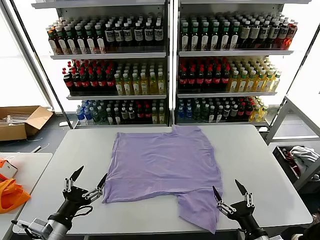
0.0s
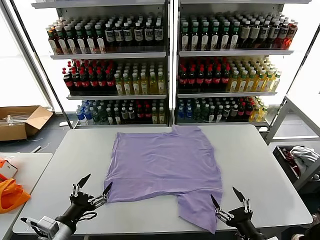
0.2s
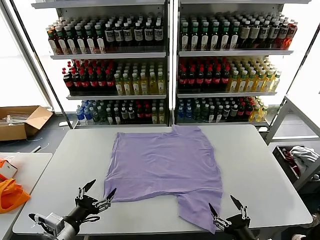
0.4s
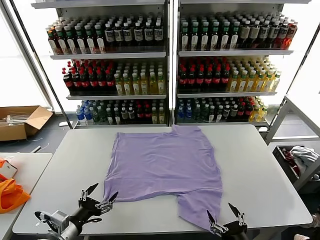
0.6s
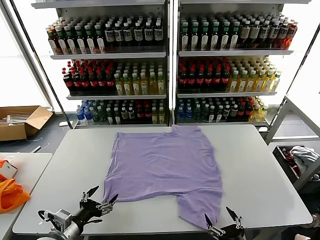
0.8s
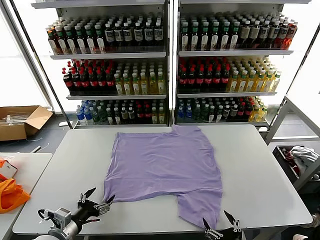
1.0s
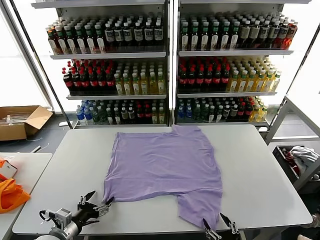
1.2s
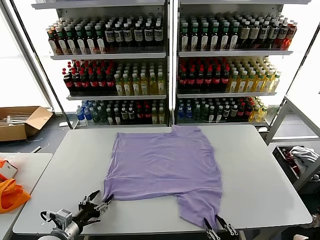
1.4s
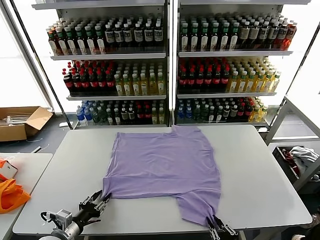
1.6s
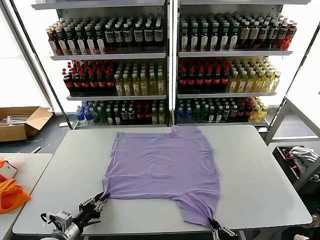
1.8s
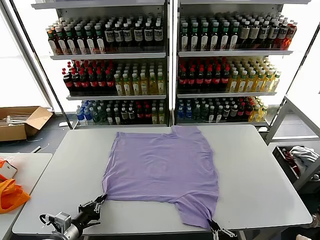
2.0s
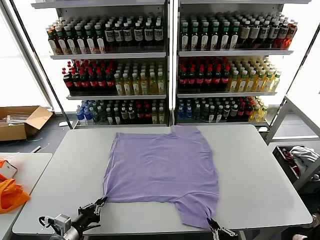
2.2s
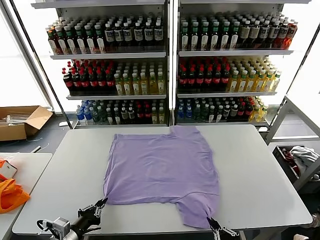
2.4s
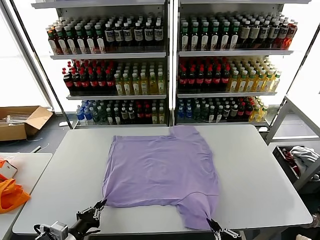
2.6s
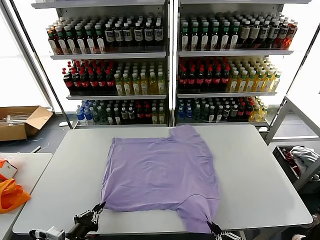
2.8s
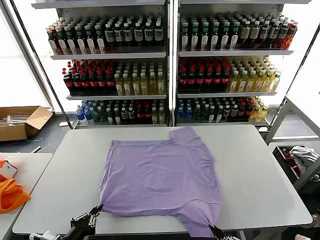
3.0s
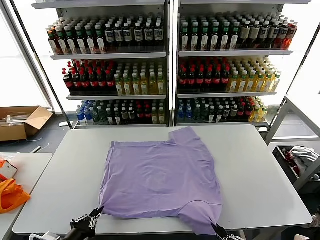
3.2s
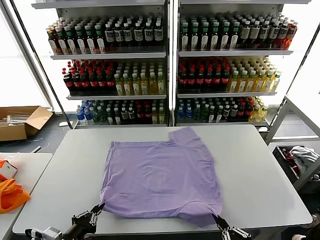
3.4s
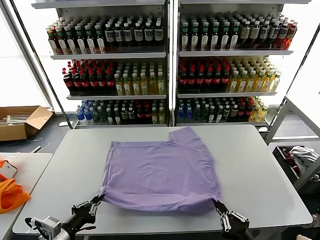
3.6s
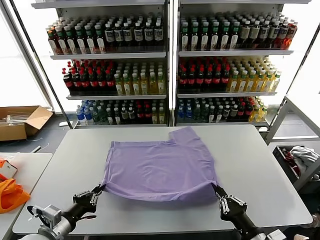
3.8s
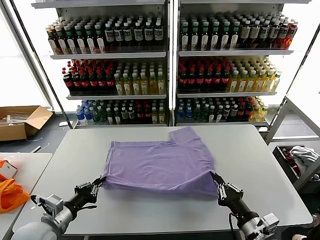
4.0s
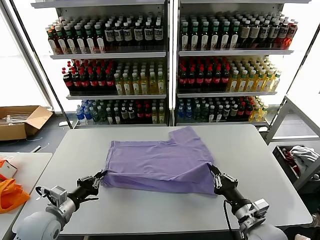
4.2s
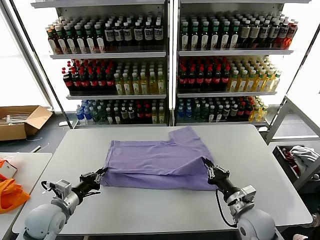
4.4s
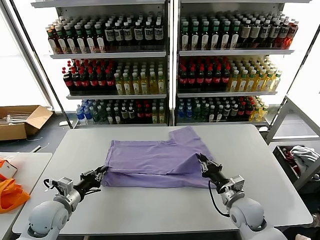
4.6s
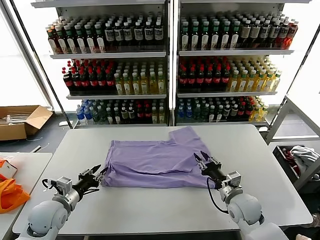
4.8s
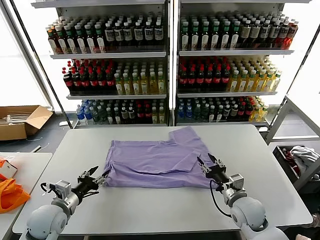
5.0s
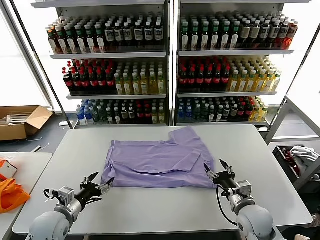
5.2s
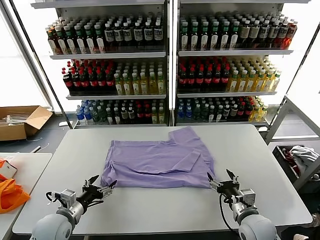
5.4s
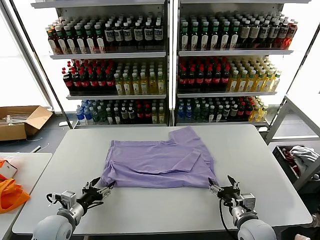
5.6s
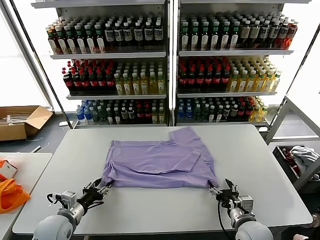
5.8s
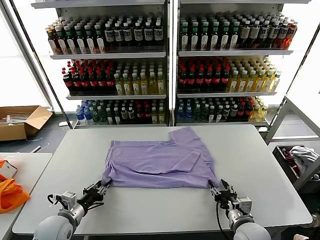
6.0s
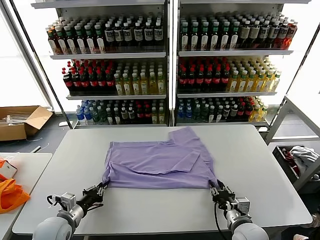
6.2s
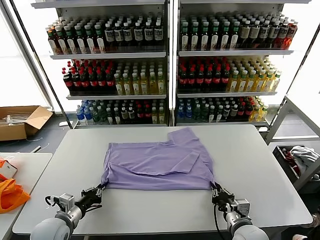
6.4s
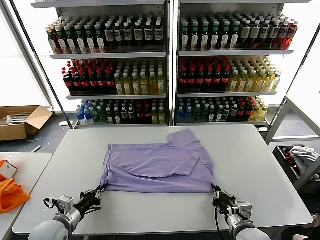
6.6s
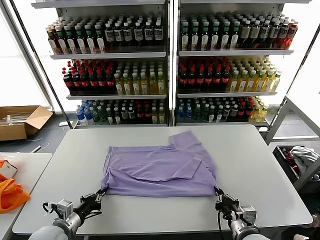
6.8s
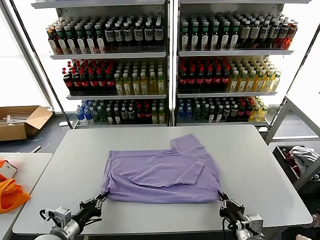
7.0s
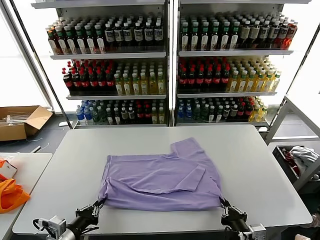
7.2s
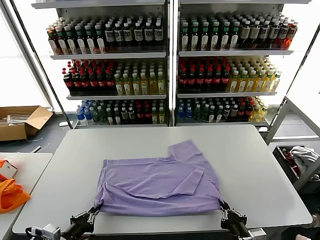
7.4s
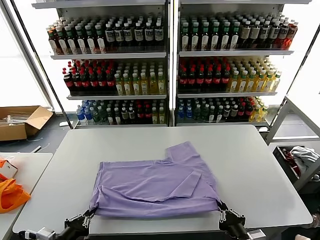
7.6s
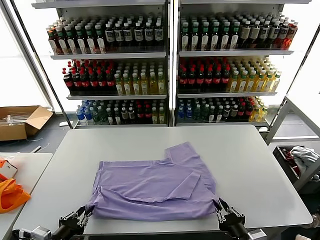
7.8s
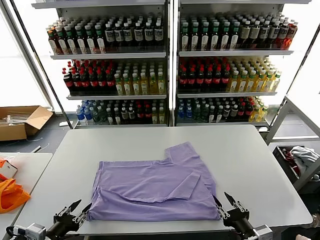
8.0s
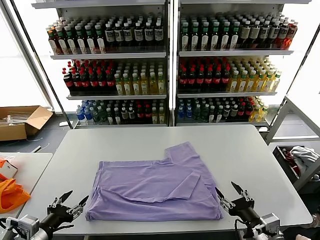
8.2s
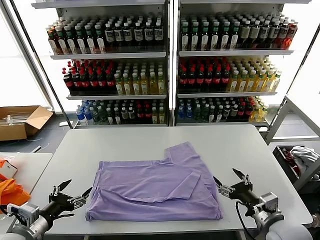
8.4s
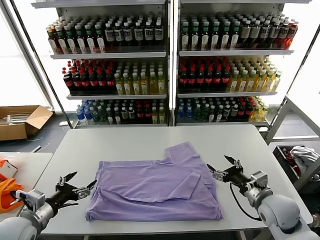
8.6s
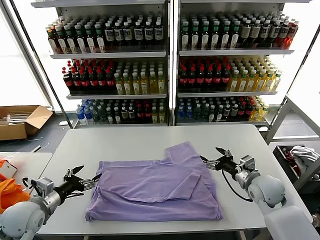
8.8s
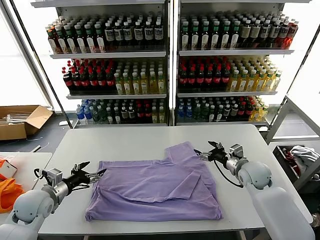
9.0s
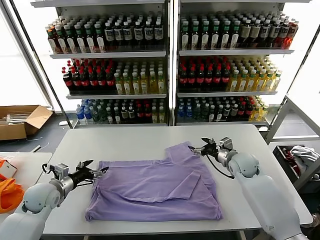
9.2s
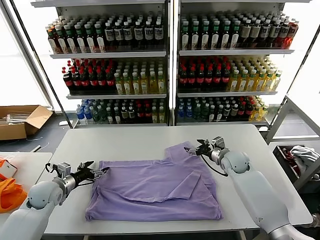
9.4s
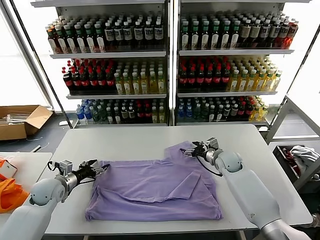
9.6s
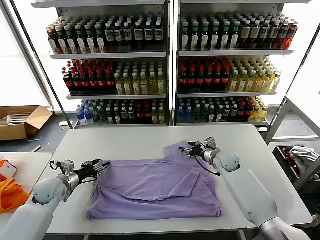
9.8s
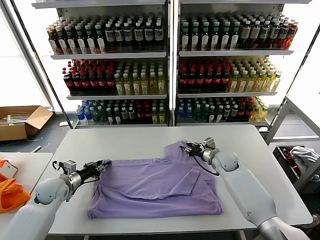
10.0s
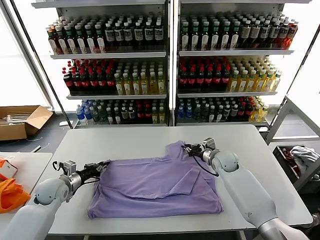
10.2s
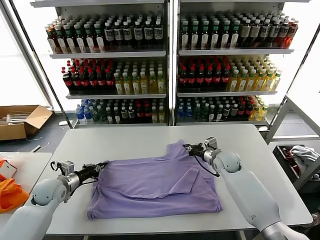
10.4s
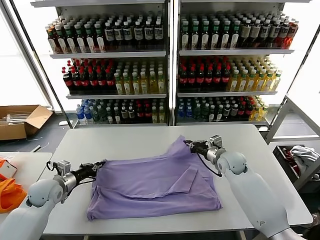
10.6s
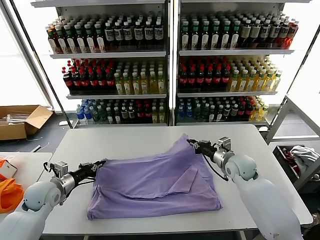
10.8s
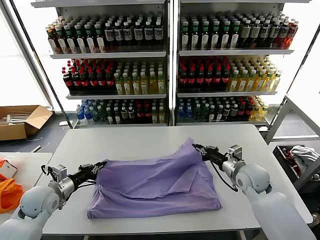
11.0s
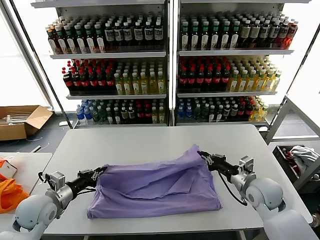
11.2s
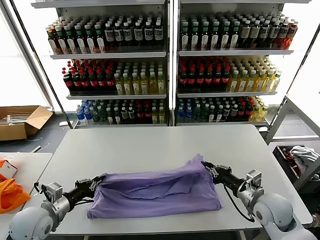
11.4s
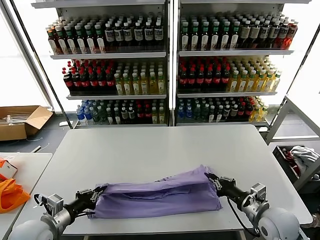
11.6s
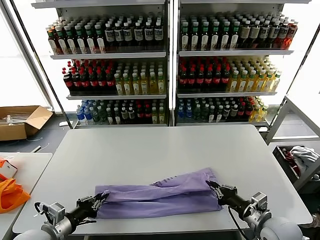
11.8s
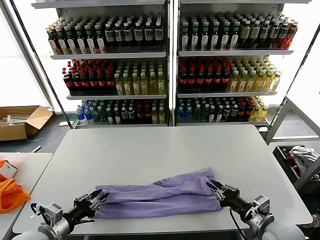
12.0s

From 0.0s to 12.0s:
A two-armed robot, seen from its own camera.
Task of the whole recording: fold and organize the clothes.
Step, from 0.0s to 2.0s: use both grippers simultaneously to clamp the lower edge of the clothing fabric.
Step, from 2.4s to 4.8s: use both grippers to drag the lower edge of the fabric forward and fold it over the upper edge.
Step, from 5.0s to 7.8s: Drag the clothes downward with both gripper.
Step, from 8.2s to 10.2s: use both grippers simultaneously to clamp the upper edge of the clothing fabric.
Step, from 10.4s to 12.0s: use both grippers to drag the upper edge of the fabric backward and fold it over the lower edge.
From 1.6s to 3.0s: The right gripper travels upward by about 5 cm. Meanwhile the left gripper shifts about 10 cm backward and upward, and closes.
From 3.0s to 4.4s: The left gripper heads forward, covering some 15 cm; the right gripper shifts roughly 25 cm forward.
From 4.4s to 6.0s: The right gripper moves backward, roughly 5 cm, and opens up. Meanwhile the left gripper changes place by some 5 cm, and opens, then closes once more.
From 6.0s to 7.6s: The two grippers go approximately 15 cm backward and upward. The right gripper closes up.
From 7.6s to 9.0s: The right gripper goes some 30 cm forward, and opens up. Meanwhile the left gripper travels forward by some 20 cm, and opens.
From 9.0s to 10.4s: The left gripper goes some 5 cm forward, and closes up. The right gripper is displaced to the left by about 5 cm, and closes.
From 10.4s to 12.0s: The grippers both shift backward by some 25 cm. The left gripper opens.

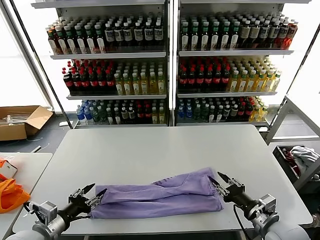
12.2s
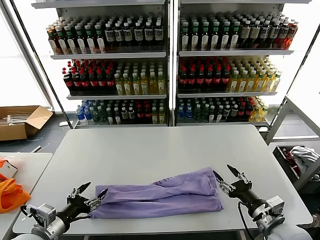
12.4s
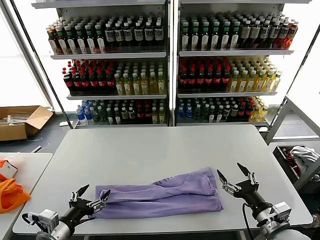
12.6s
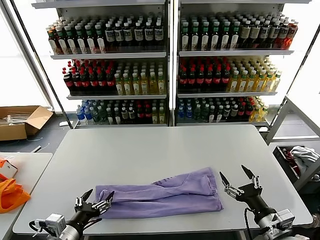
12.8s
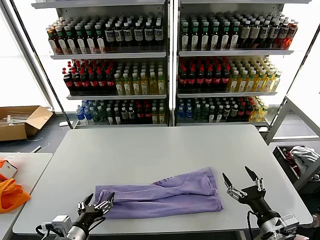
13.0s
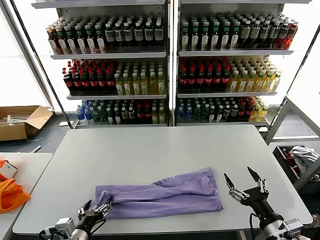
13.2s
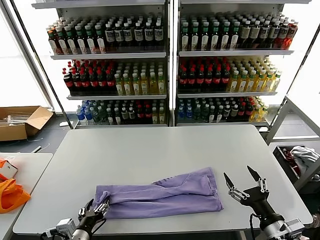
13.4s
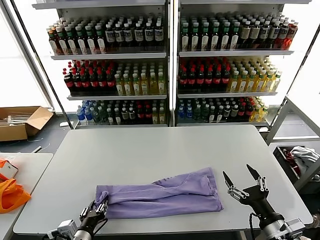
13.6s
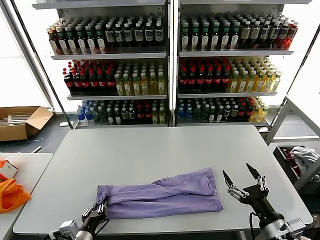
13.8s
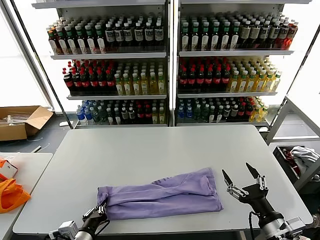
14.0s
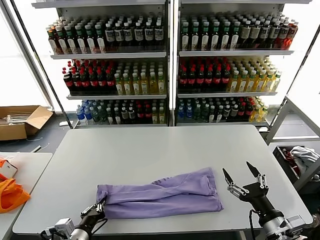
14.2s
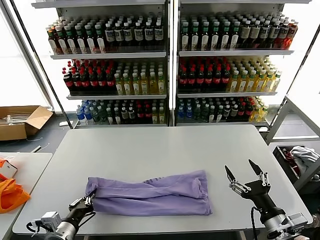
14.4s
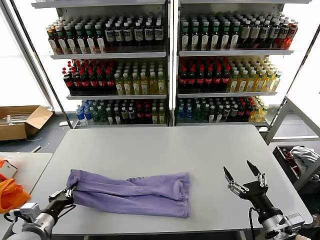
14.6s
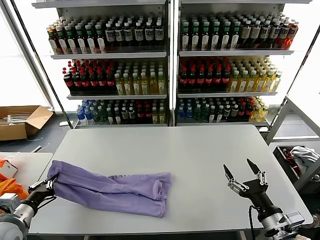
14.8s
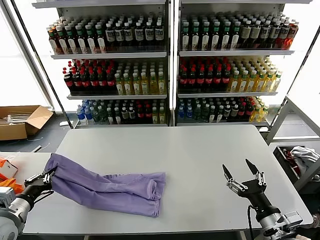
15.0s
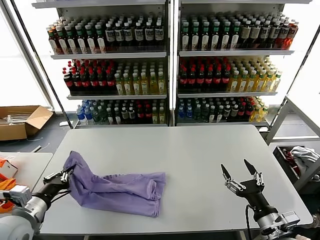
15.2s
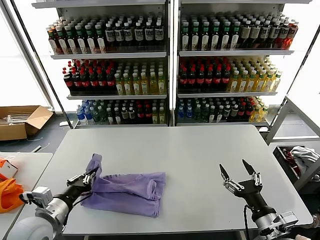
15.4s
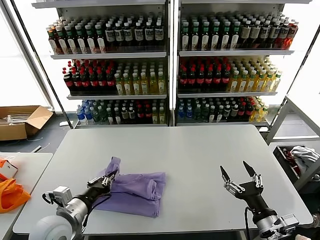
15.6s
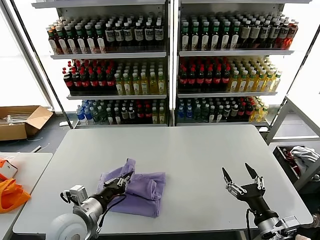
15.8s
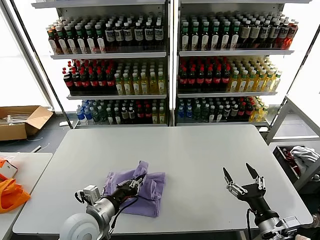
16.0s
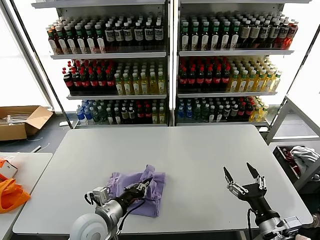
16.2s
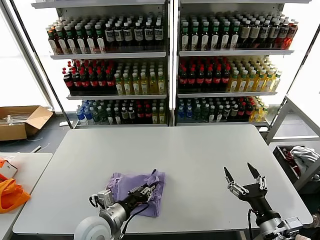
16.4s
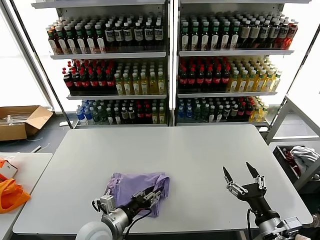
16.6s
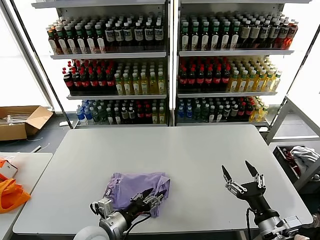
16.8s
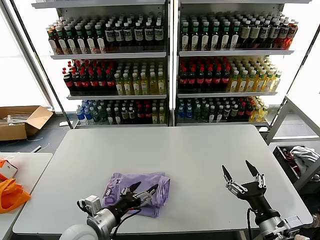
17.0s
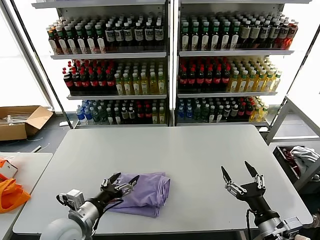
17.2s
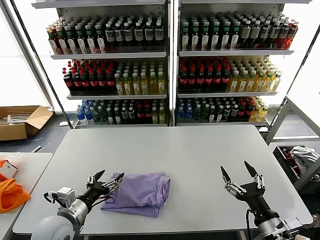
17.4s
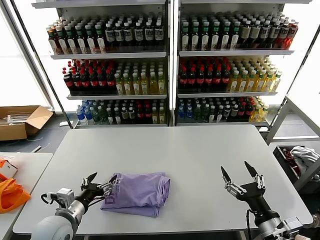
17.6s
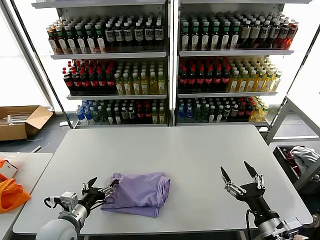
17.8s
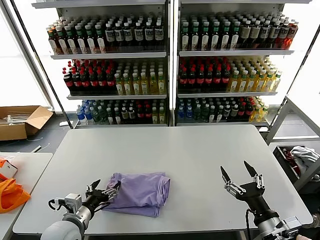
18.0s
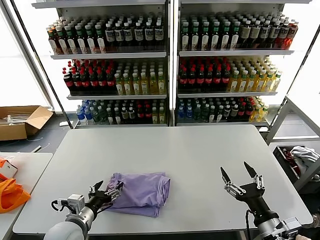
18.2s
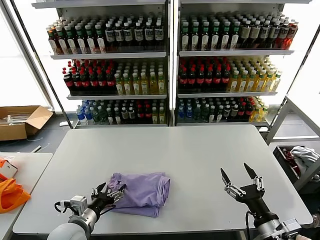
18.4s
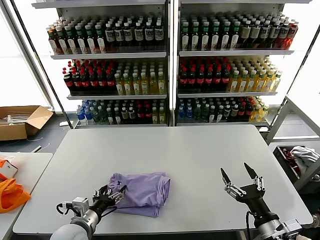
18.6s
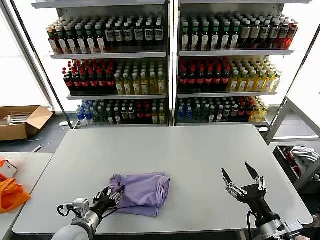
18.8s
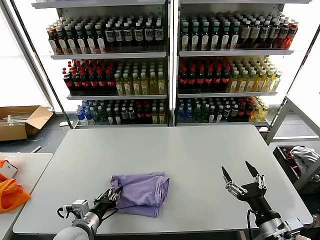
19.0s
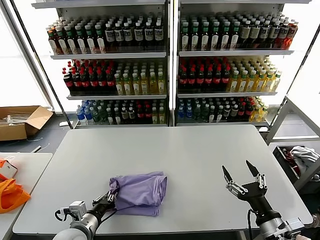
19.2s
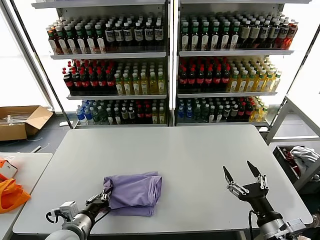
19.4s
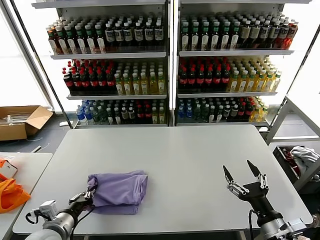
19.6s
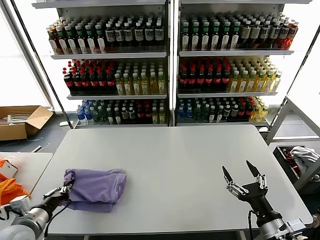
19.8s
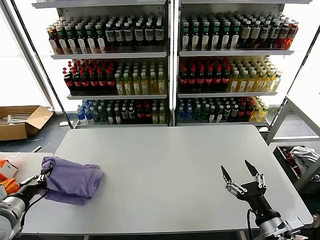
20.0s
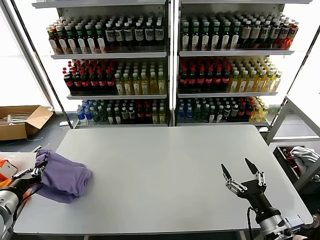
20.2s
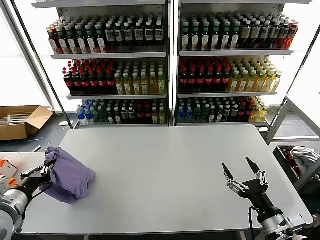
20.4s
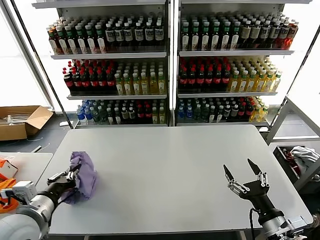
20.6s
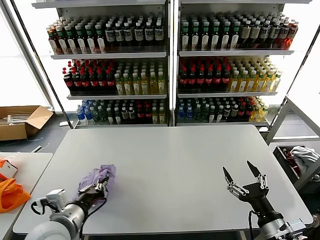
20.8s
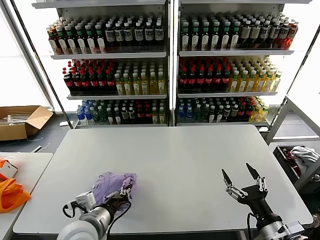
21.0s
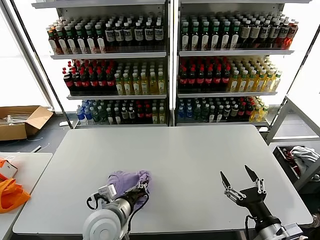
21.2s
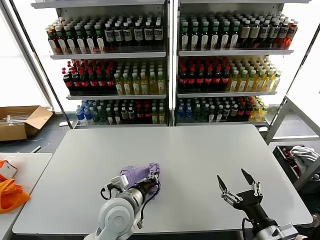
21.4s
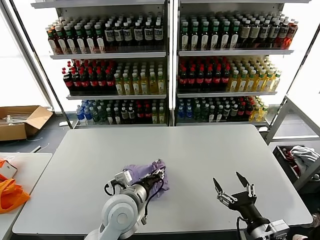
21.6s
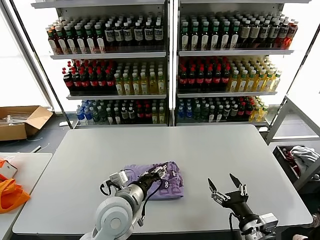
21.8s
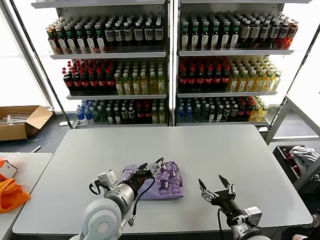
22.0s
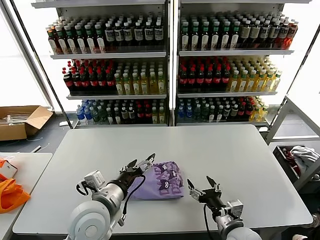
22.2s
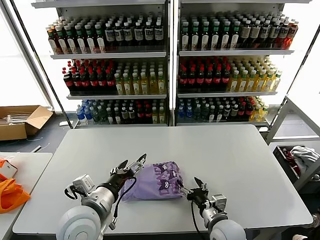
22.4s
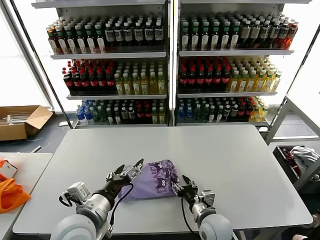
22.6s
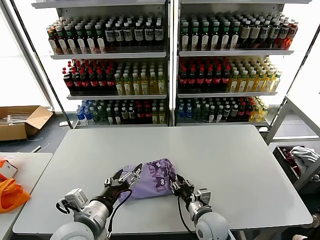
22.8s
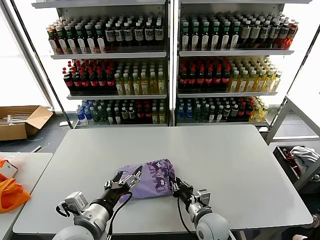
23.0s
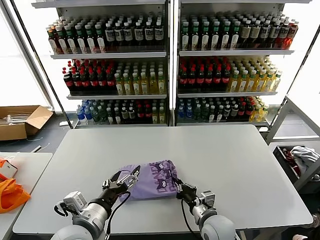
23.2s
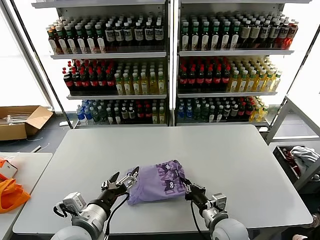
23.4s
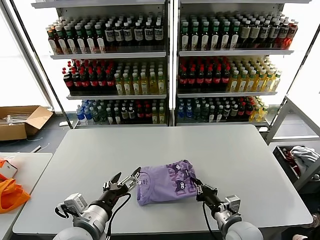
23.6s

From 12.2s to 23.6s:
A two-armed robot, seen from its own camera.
Task of the whole recording: fold and organize the clothes.
Step, from 12.2s to 14.0s: use the left gripper to clamp the left edge of the fabric.
Step, from 14.2s to 16.8s: use the left gripper to drag the left edge of the fabric to the left and folds it over the right edge.
Step, from 17.0s to 21.6s: Flip the folded clothes over with left gripper.
From 12.2s to 13.6s: The right gripper travels backward by approximately 5 cm, and opens up; the left gripper goes about 10 cm to the right and downward, and opens and closes again.
From 13.6s to 15.0s: The left gripper heads to the left and upward, covering about 20 cm, and closes its fingers.
From 15.0s to 16.4s: The left gripper goes some 25 cm to the right.
From 16.4s to 17.8s: The left gripper heads to the left, covering about 10 cm, and opens its fingers.
From 17.8s to 19.4s: The left gripper closes.
From 19.4s to 20.8s: The left gripper travels upward by approximately 10 cm, and moves roughly 15 cm to the left and comes back.
From 20.8s to 22.2s: The left gripper heads to the right, covering approximately 10 cm, and opens, while the right gripper travels to the left, forward and downward by approximately 10 cm.
From 22.2s to 23.6s: The left gripper moves backward, some 5 cm. The right gripper closes its fingers.
